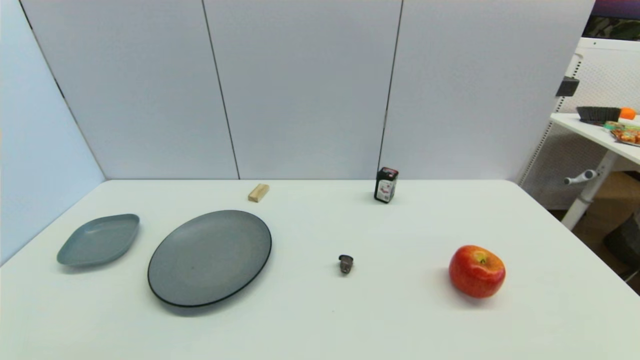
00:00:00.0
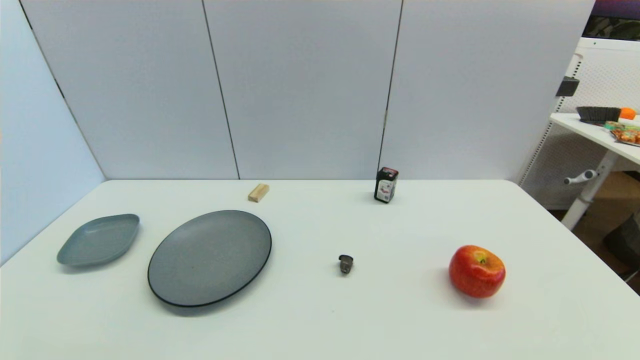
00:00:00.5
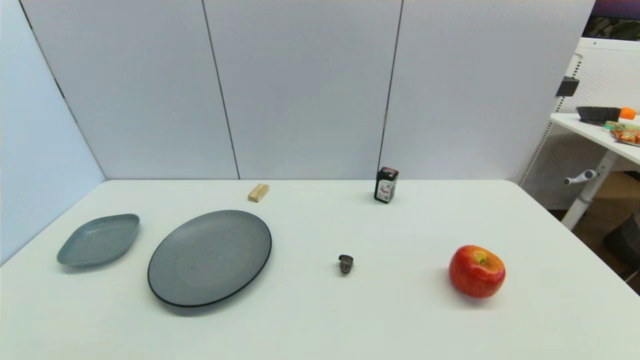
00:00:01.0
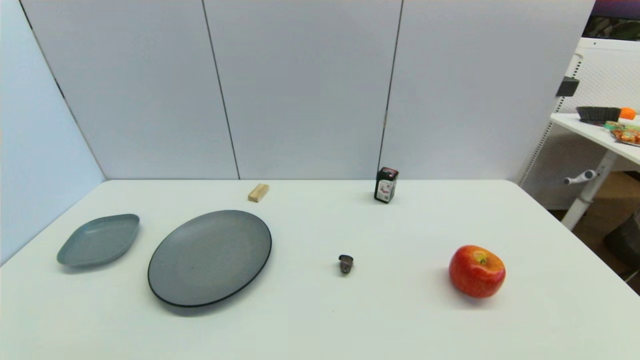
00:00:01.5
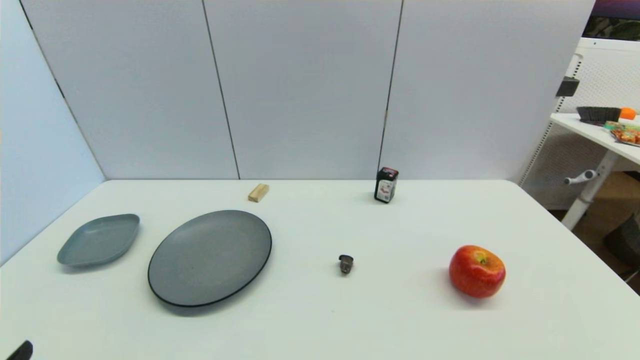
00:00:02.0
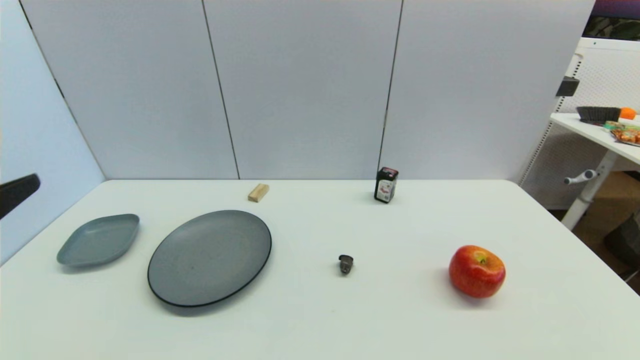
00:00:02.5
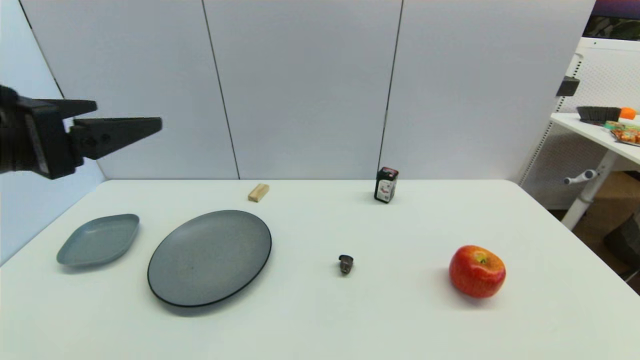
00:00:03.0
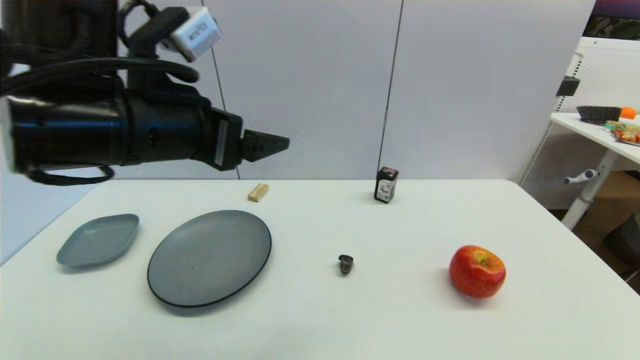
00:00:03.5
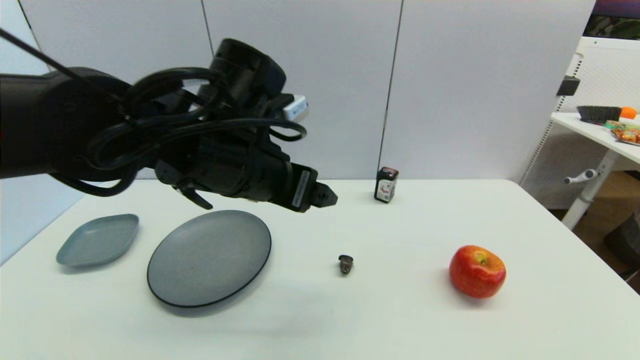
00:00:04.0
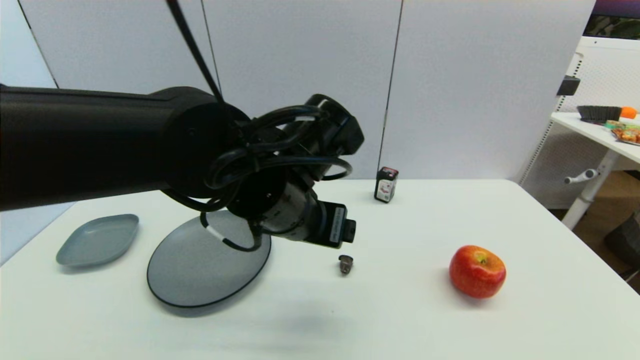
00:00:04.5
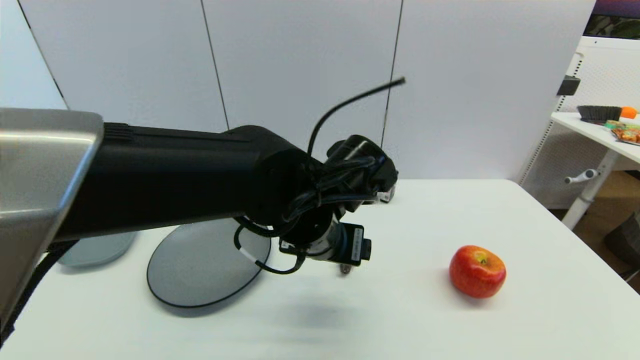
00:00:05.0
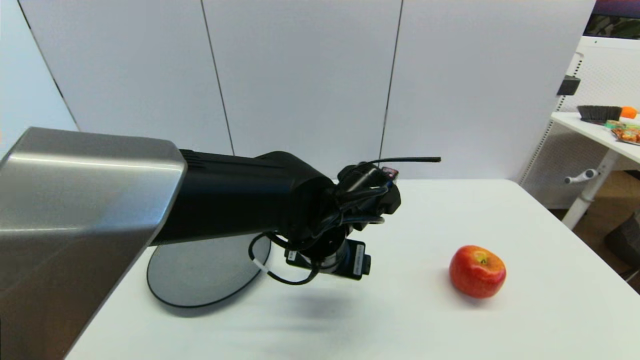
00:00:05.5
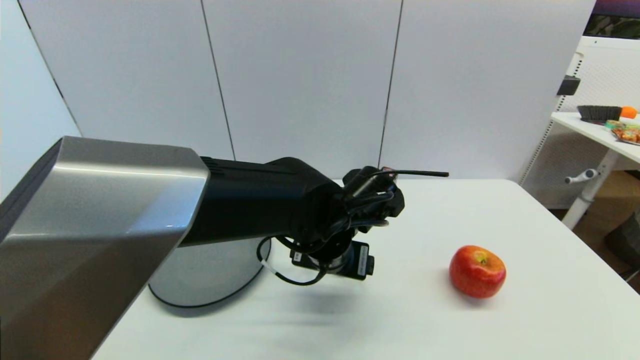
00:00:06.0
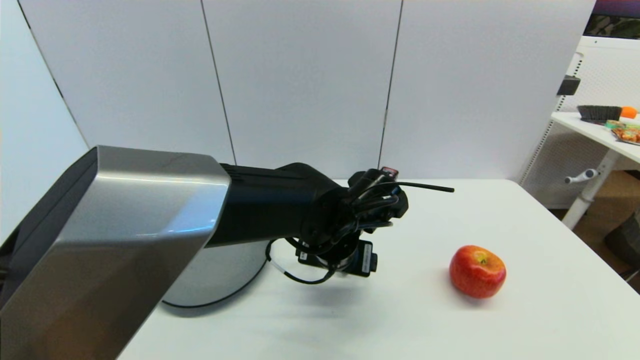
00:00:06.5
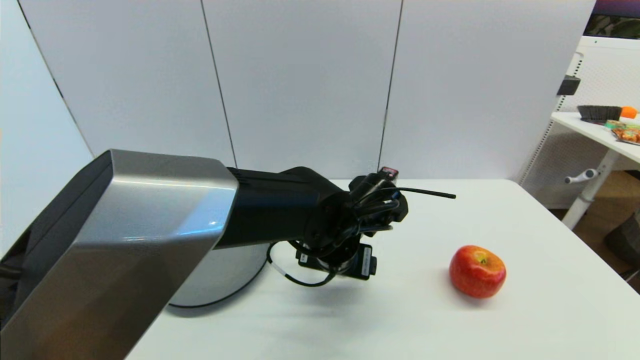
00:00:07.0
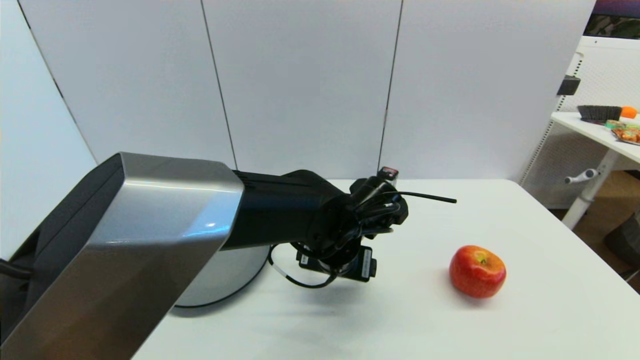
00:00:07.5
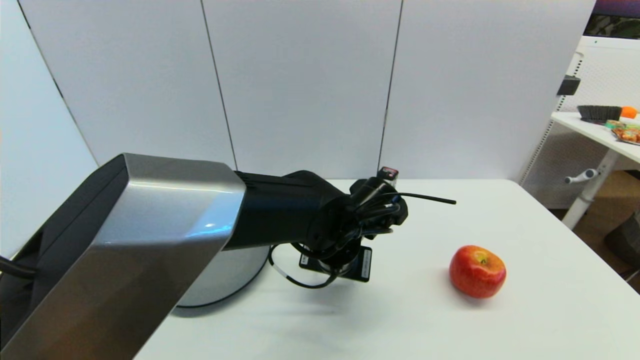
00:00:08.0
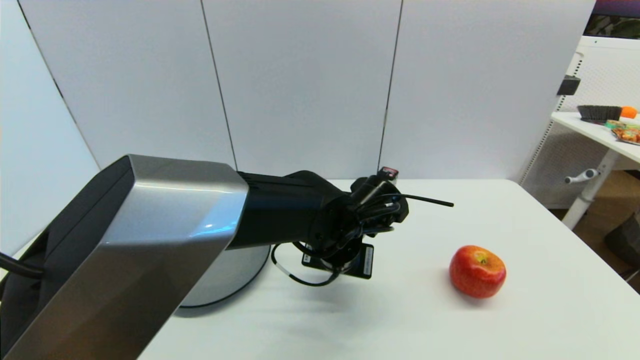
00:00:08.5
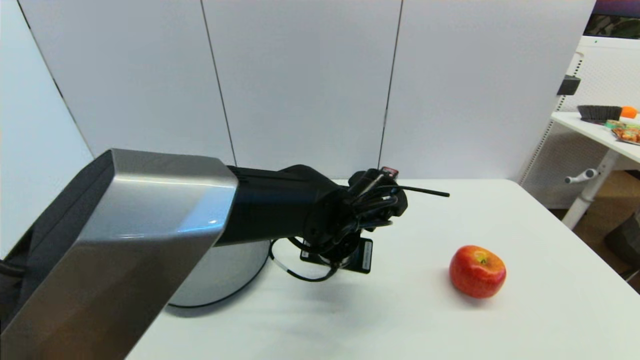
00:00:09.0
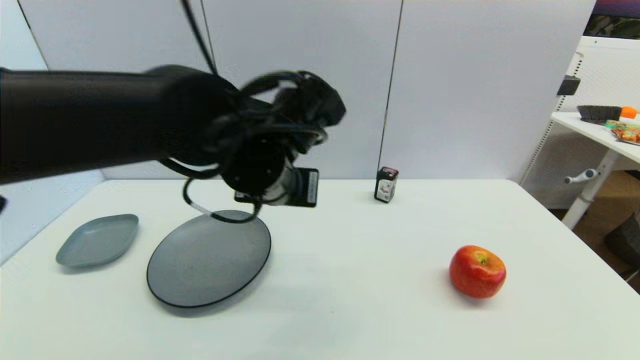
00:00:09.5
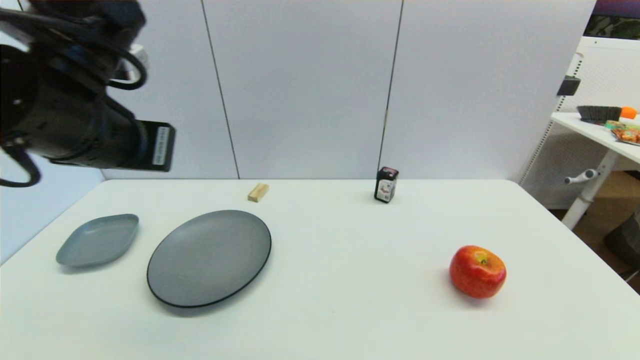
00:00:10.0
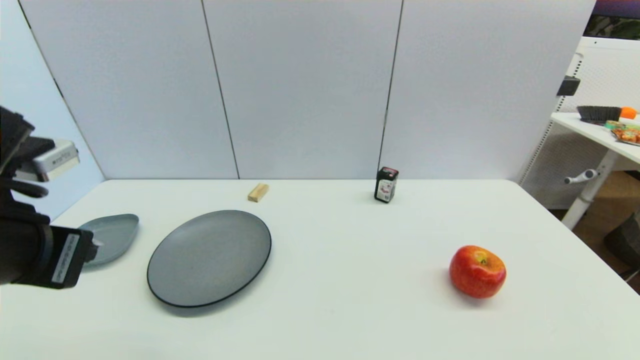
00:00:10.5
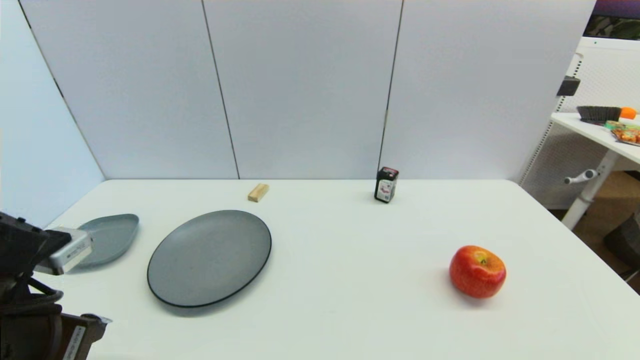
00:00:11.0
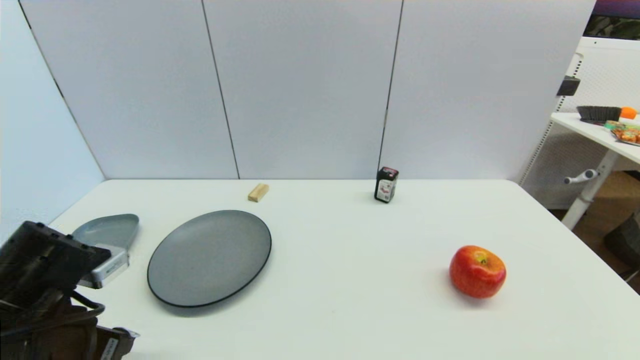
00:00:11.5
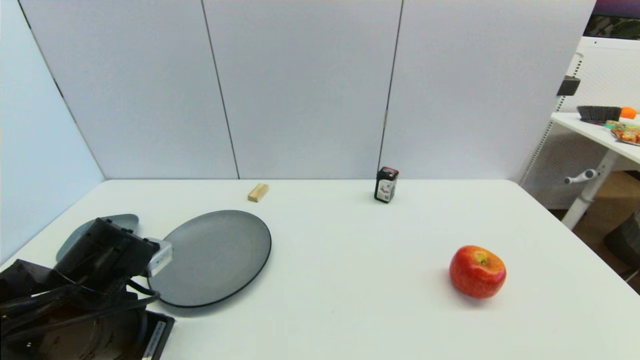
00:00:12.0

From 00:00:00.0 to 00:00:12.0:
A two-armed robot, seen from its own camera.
Step, from 00:00:02.0 to 00:00:08.5: Grasp the coffee capsule with left gripper.
From 00:00:02.0 to 00:00:04.0: The left gripper moves forward, to the right and upward, some 35 cm.
From 00:00:04.0 to 00:00:06.0: The left gripper goes about 15 cm downward and to the right.
From 00:00:06.0 to 00:00:08.0: The left gripper closes.
From 00:00:08.0 to 00:00:10.0: The left gripper moves to the left and upward, some 30 cm, and closes up.
From 00:00:10.0 to 00:00:12.0: The left gripper moves downward, some 20 cm.

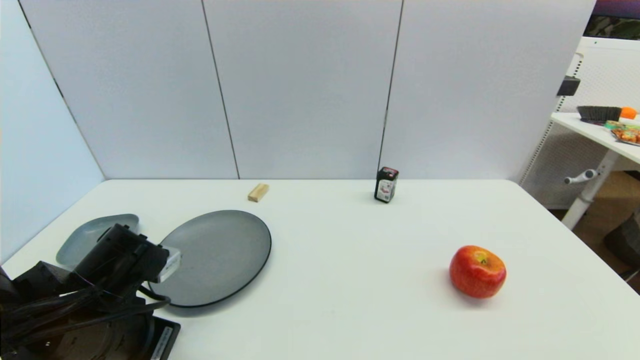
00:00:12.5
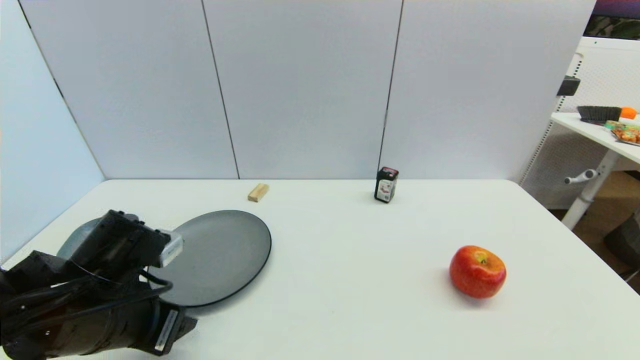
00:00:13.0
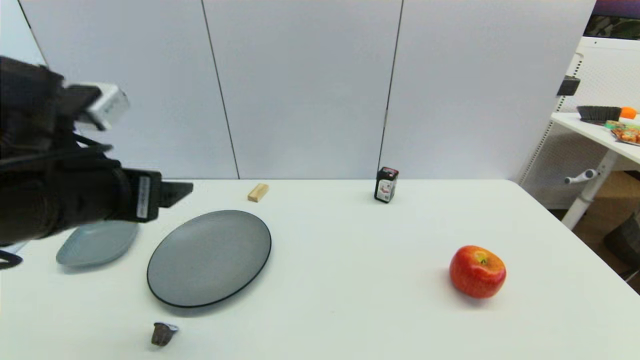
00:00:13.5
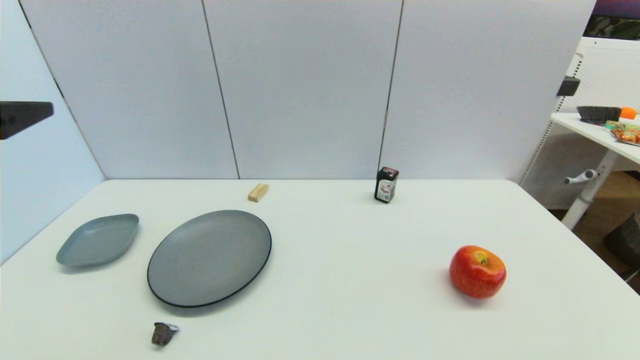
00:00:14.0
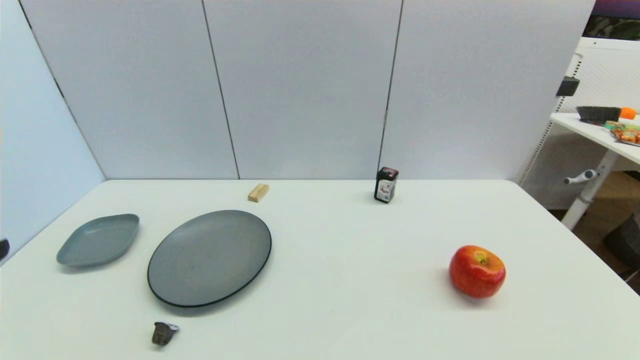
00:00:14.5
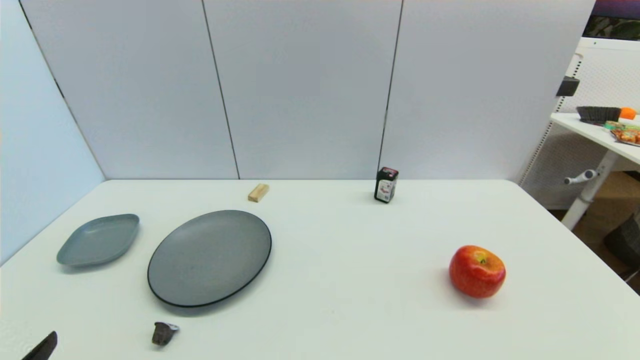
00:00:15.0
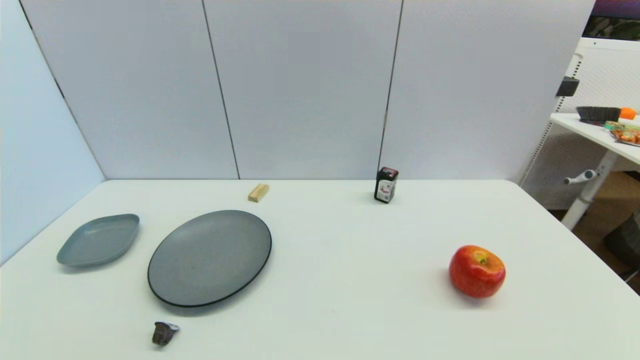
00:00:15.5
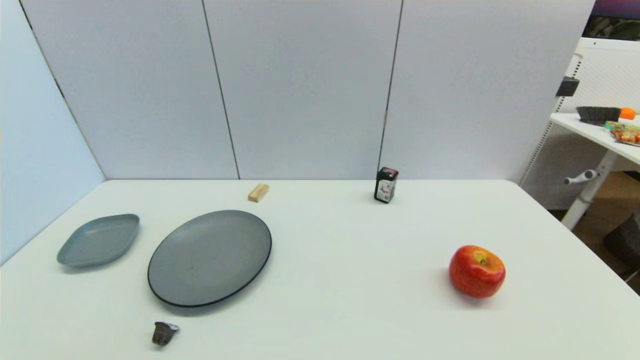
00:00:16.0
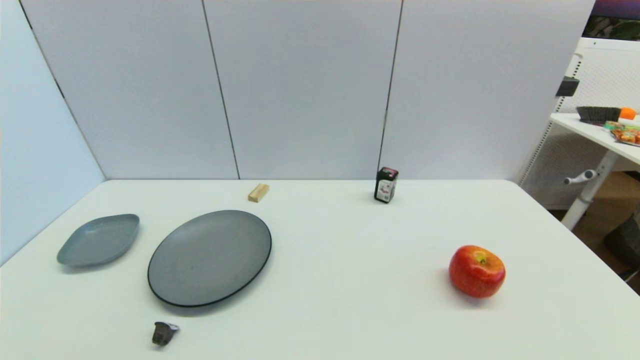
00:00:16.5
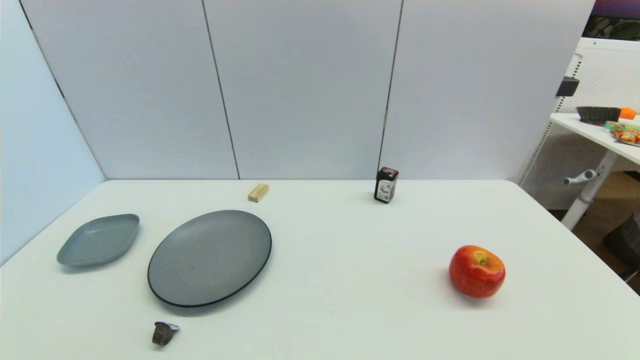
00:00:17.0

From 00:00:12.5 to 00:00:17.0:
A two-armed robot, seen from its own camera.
From 00:00:12.5 to 00:00:14.5: The left gripper is displaced backward, upward and to the left by roughly 20 cm, and opens up.
